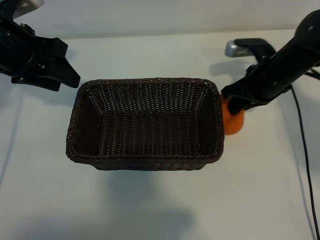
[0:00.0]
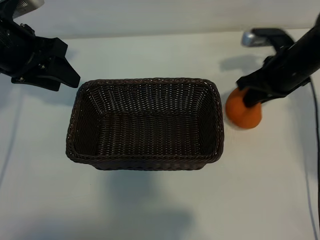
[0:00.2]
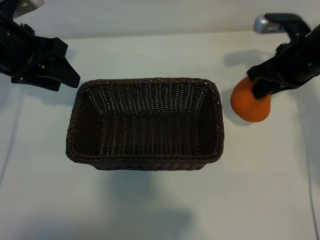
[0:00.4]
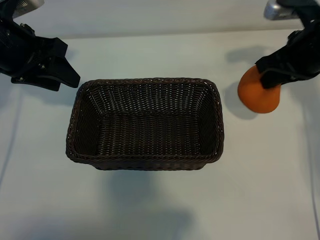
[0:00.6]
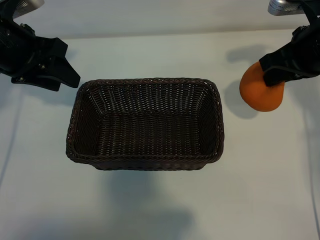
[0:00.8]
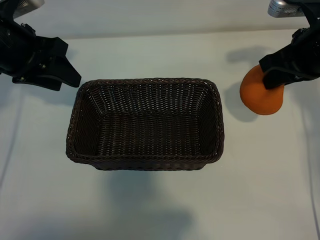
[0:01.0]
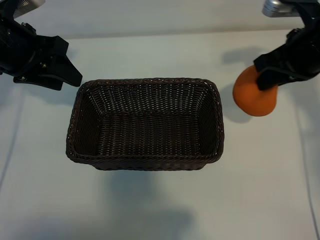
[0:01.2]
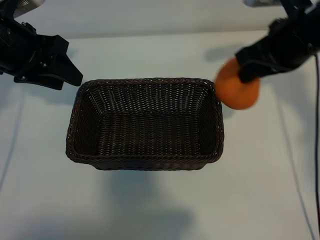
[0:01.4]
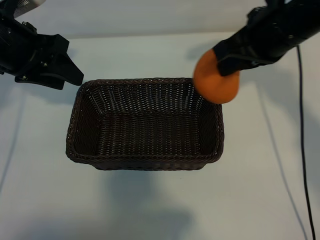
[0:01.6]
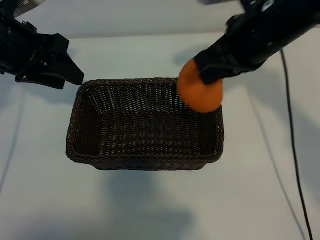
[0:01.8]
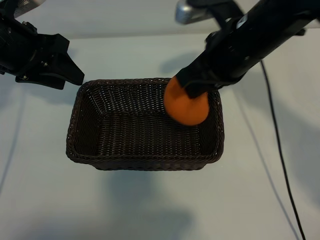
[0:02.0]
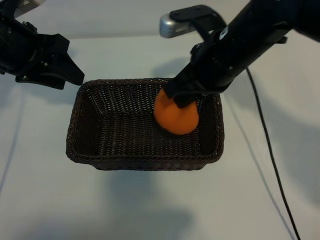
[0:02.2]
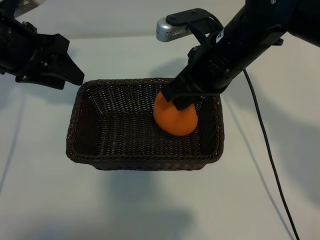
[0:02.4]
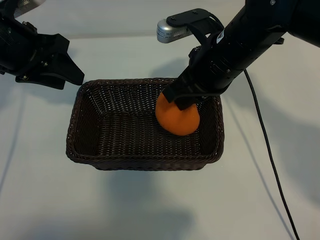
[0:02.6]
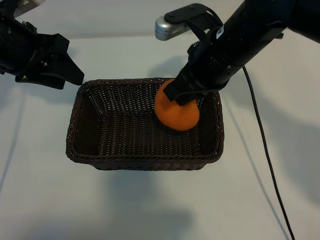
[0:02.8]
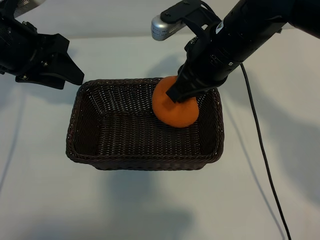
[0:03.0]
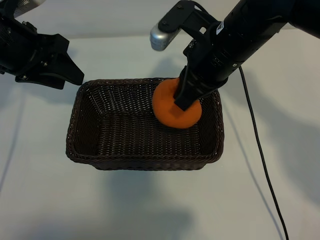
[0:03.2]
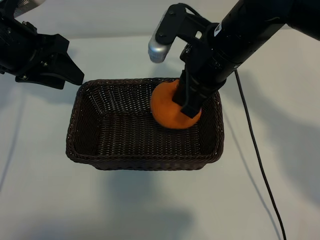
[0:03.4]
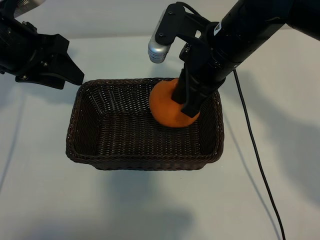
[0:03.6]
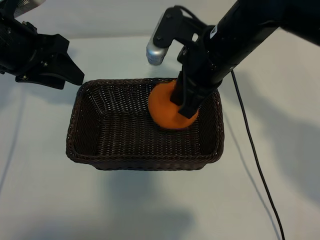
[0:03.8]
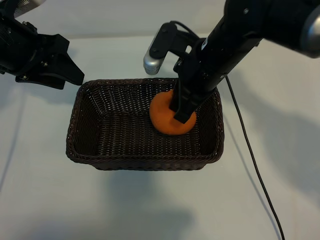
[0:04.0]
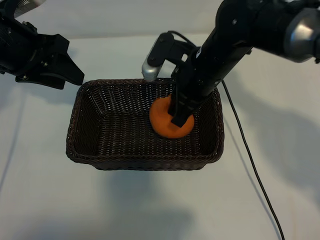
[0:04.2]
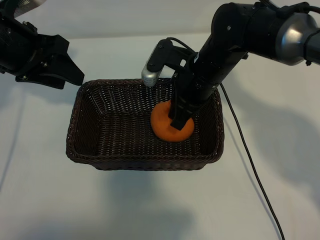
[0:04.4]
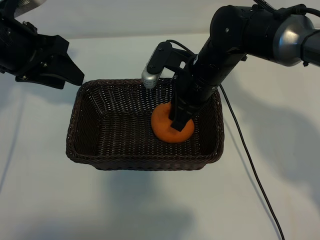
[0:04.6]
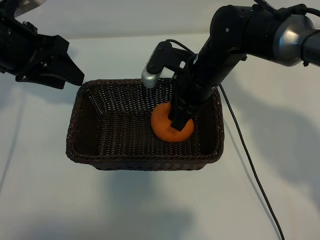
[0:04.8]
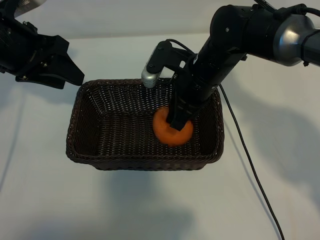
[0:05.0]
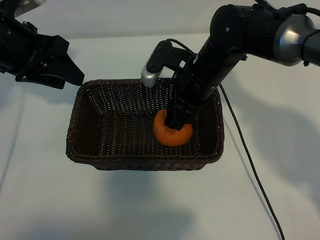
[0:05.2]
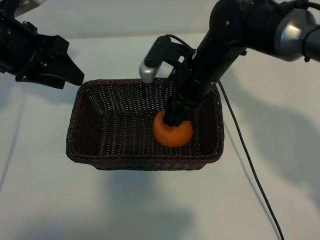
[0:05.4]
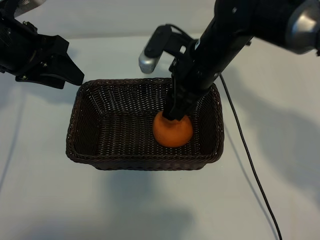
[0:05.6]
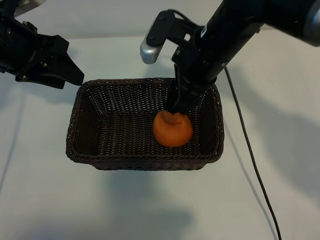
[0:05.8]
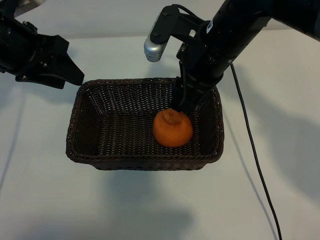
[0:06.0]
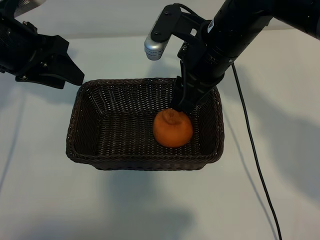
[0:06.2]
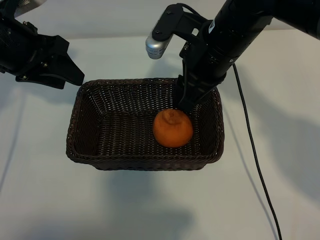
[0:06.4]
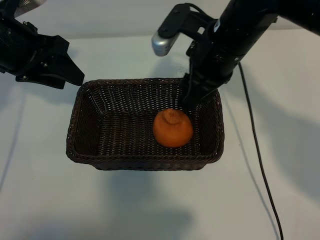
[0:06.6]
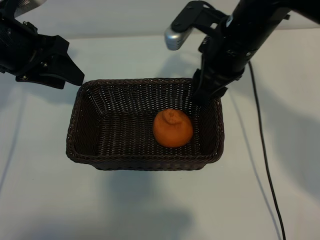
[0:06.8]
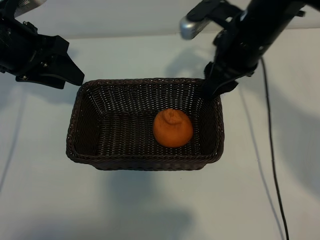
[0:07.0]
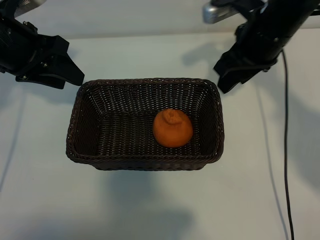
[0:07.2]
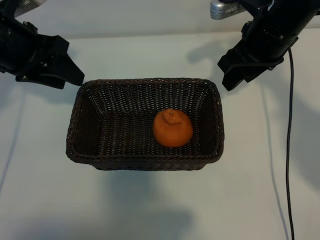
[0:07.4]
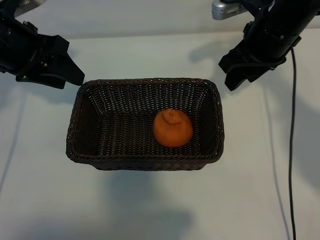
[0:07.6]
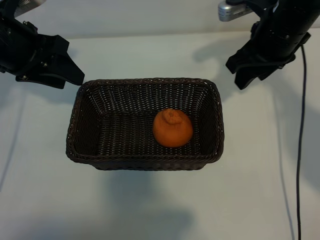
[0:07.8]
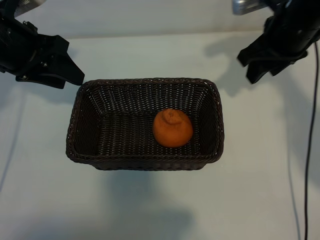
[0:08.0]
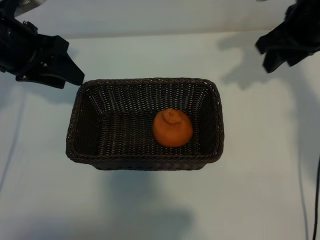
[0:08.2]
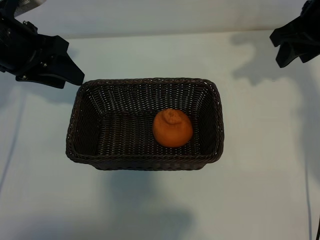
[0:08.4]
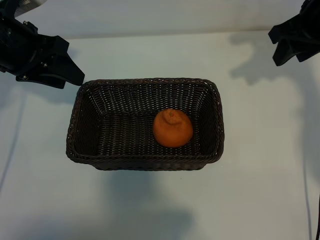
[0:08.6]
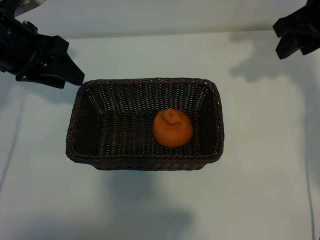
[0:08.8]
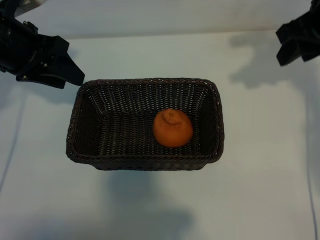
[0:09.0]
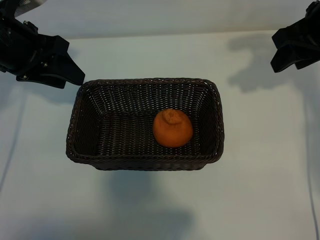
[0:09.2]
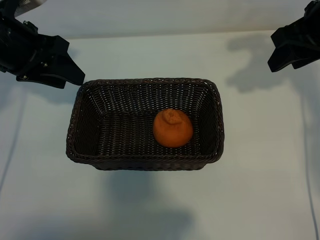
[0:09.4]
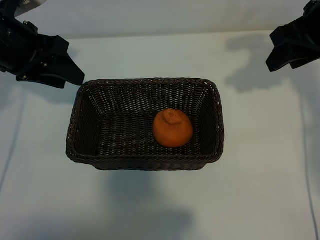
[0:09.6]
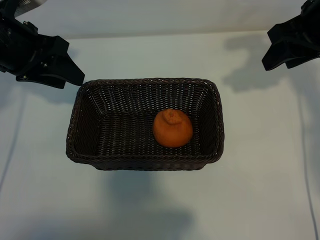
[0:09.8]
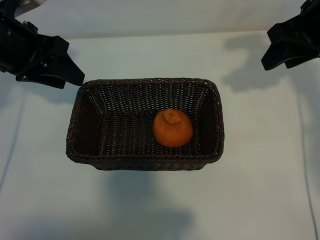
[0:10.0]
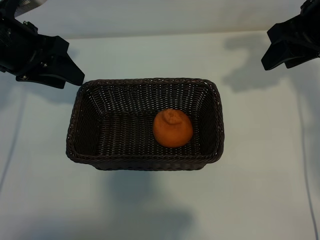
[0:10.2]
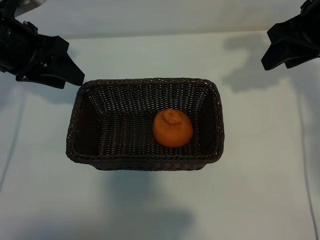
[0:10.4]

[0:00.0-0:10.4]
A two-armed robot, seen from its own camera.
Task of the whole recording: pick up the orange and put it into the basket.
Step, 0:00.0 to 0:05.2: Place the orange in the basket with right gripper.

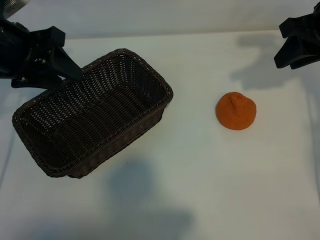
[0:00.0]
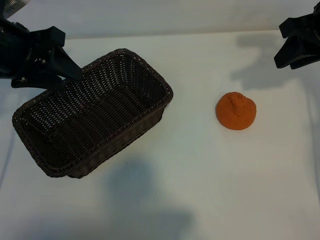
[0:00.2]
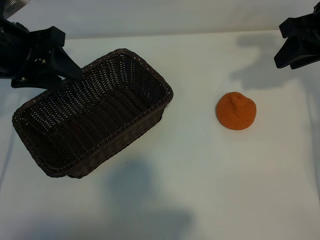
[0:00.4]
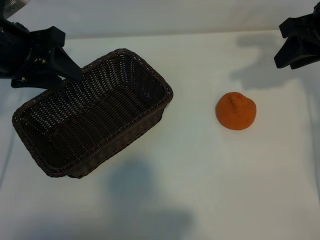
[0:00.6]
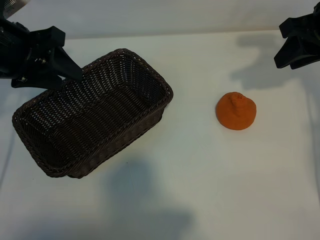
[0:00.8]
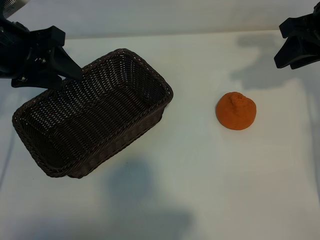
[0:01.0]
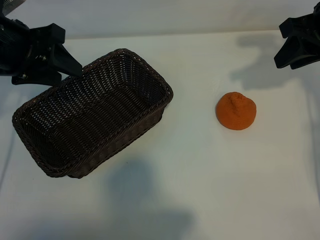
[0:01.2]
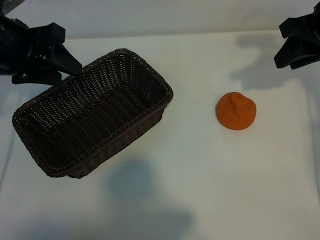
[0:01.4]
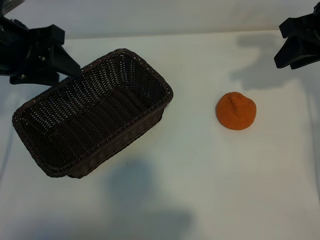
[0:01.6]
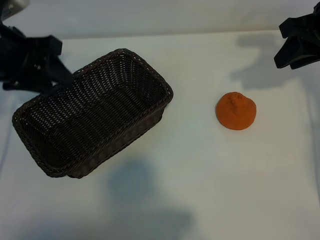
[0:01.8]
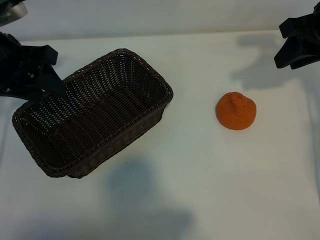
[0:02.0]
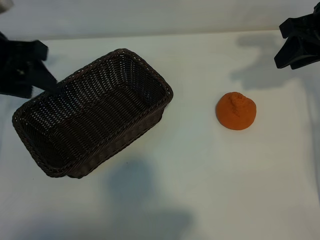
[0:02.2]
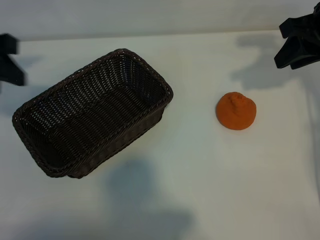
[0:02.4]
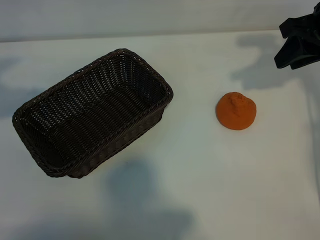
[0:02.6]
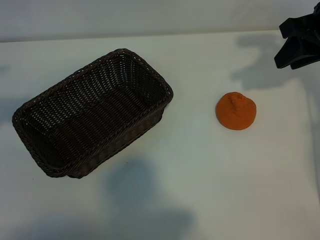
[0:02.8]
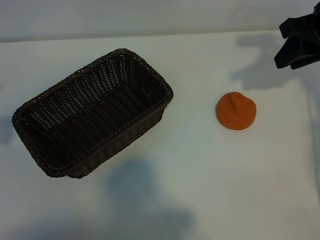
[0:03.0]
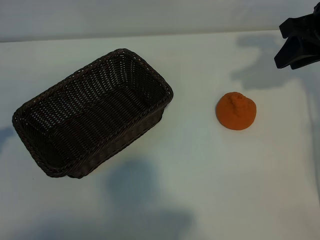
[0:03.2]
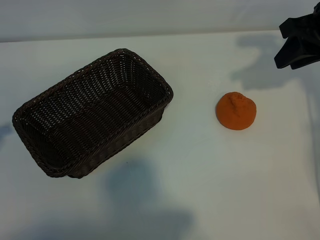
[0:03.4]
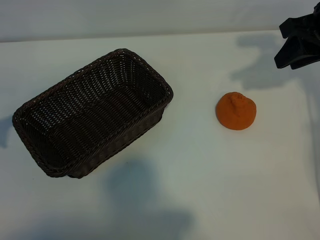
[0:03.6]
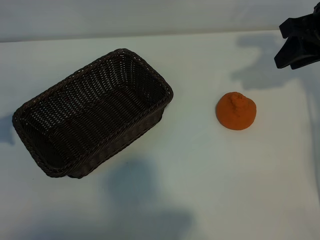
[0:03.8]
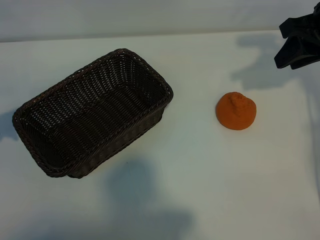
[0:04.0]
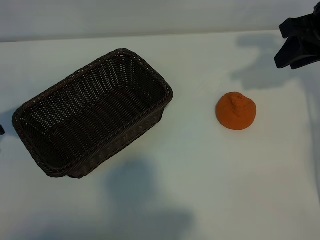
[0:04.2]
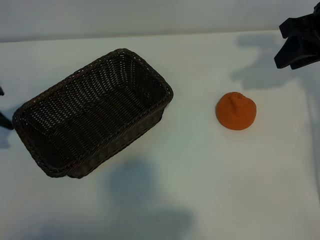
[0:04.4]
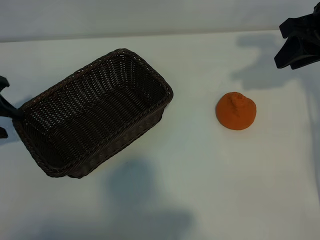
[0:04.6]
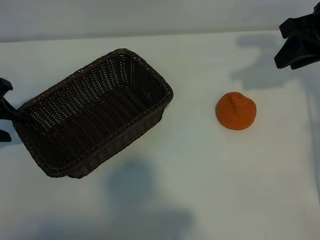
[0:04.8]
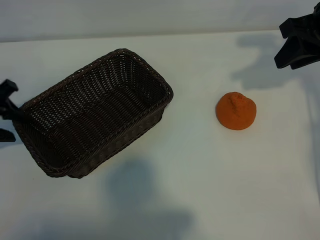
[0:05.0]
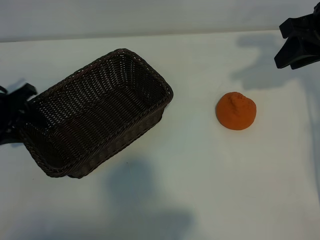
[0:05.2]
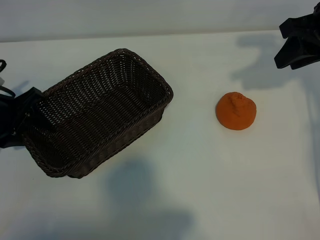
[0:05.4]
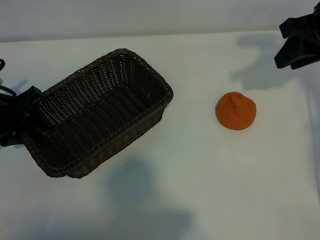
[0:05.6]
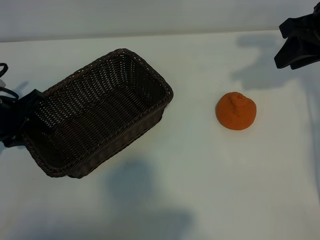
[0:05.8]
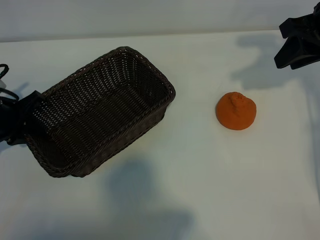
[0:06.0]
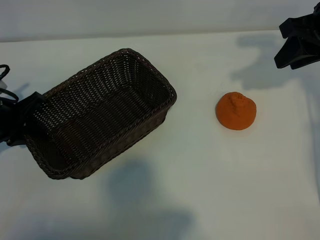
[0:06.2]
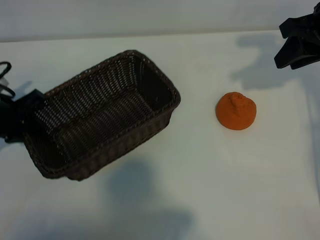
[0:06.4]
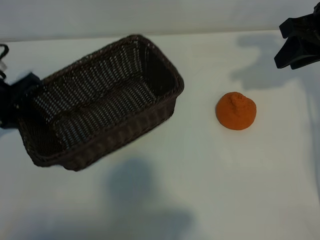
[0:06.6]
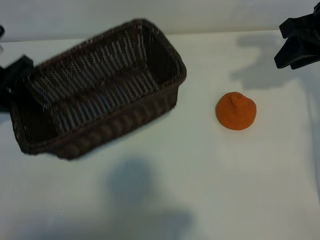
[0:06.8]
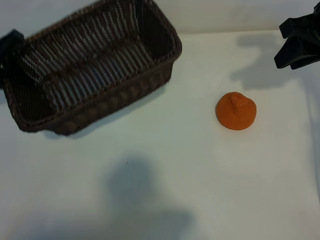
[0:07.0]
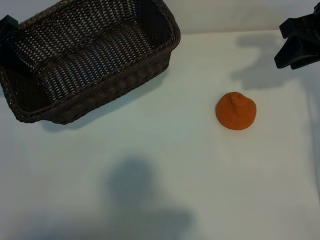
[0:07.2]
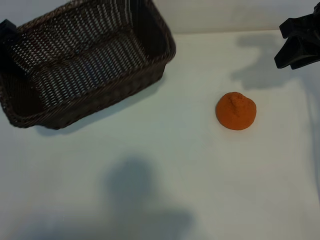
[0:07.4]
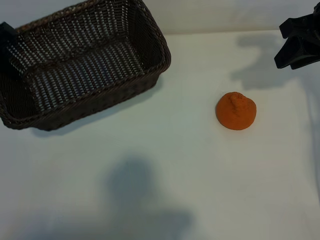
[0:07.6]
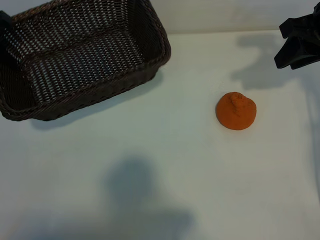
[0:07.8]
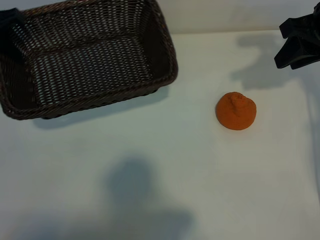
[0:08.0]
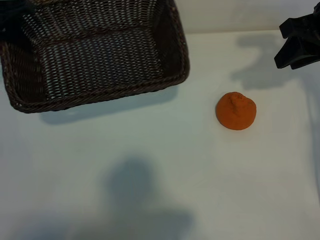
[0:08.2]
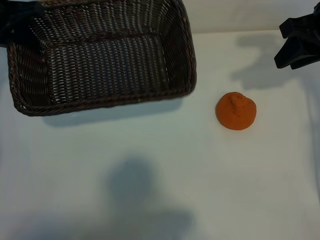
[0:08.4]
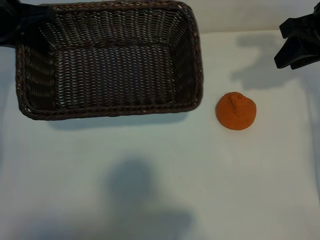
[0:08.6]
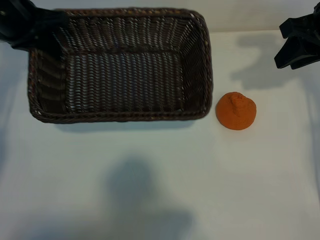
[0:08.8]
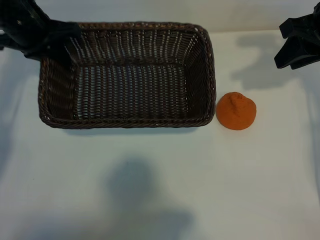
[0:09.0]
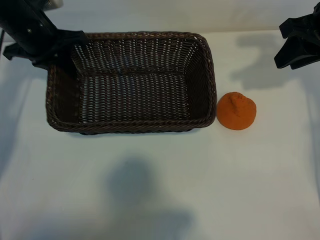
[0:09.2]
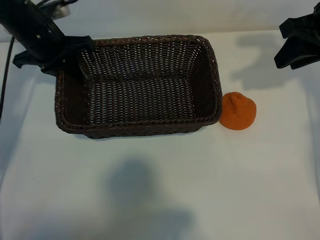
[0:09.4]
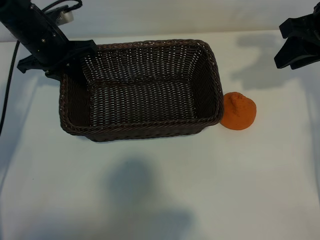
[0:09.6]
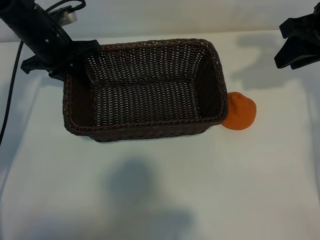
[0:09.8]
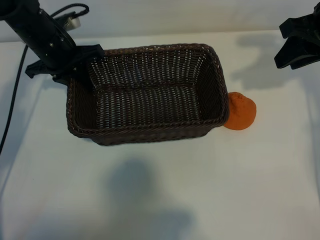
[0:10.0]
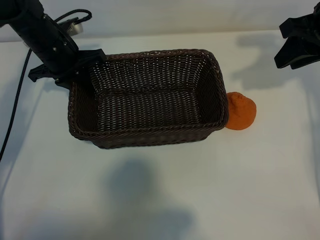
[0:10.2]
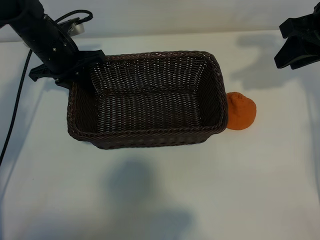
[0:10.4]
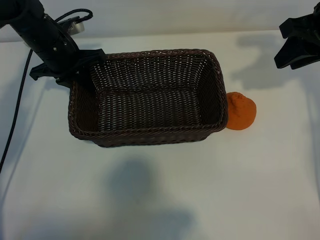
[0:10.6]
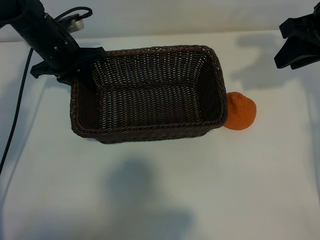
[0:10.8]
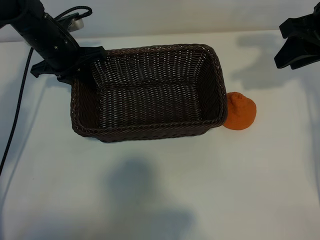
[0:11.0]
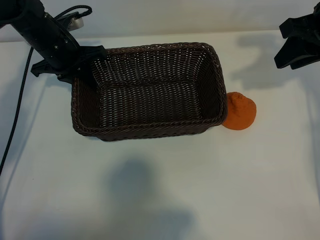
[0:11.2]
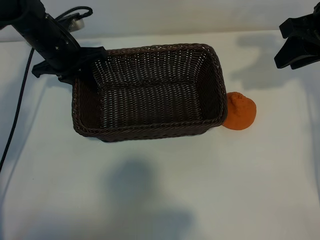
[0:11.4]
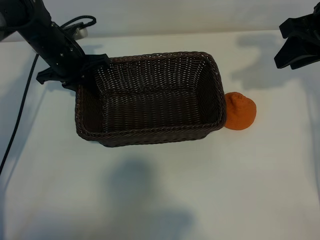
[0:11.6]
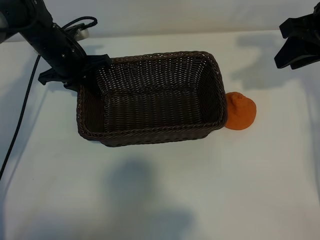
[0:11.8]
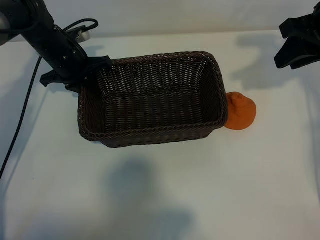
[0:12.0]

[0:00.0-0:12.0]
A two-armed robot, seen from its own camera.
Task of the whole recording: pick up the orange and put it into the basket.
Step, 0:01.0 to 0:06.0: Grasp the basket with left gripper.
